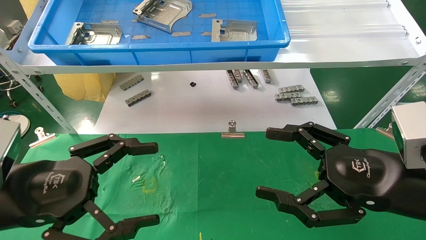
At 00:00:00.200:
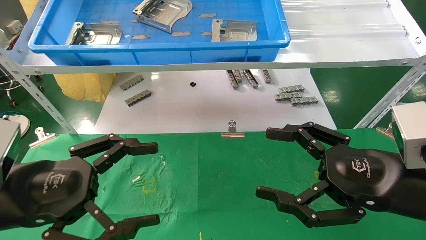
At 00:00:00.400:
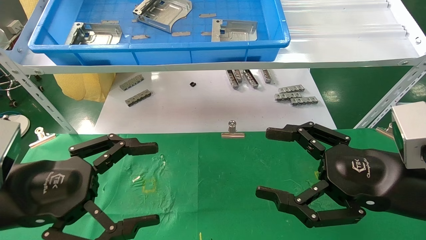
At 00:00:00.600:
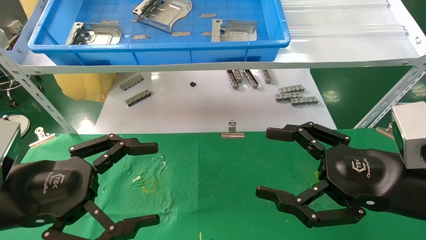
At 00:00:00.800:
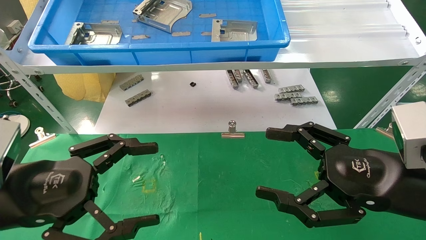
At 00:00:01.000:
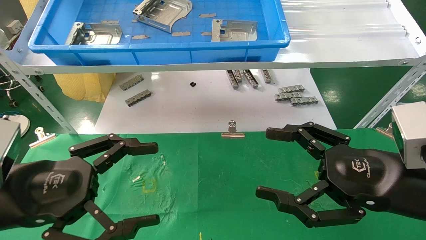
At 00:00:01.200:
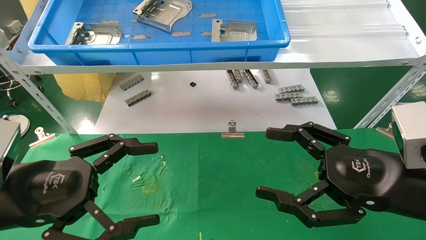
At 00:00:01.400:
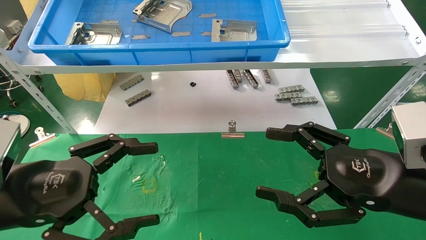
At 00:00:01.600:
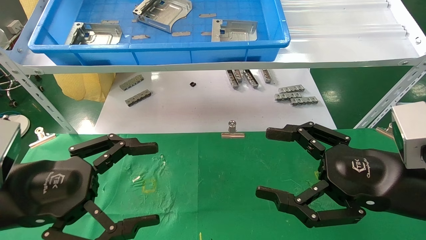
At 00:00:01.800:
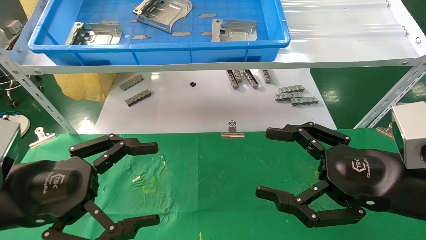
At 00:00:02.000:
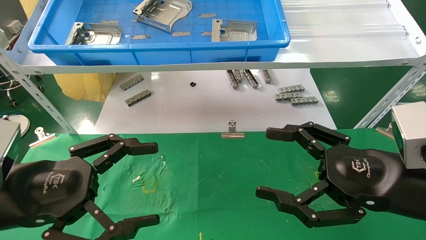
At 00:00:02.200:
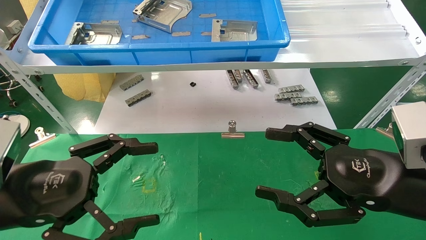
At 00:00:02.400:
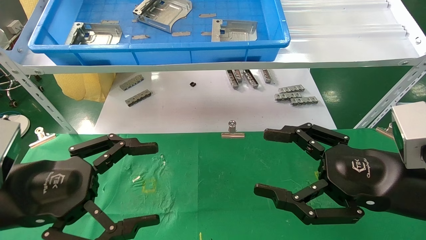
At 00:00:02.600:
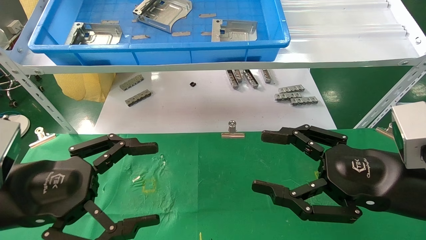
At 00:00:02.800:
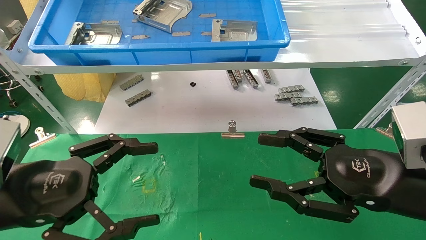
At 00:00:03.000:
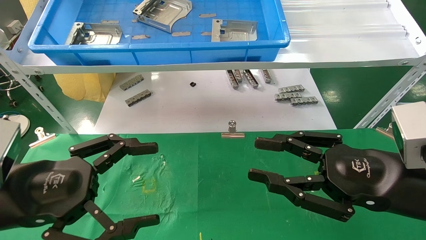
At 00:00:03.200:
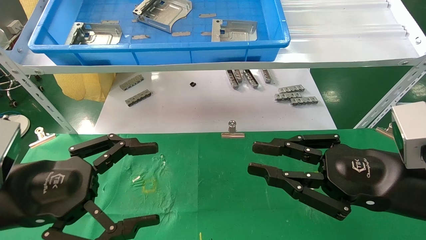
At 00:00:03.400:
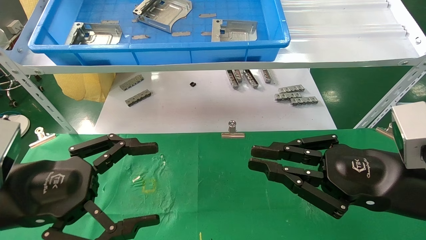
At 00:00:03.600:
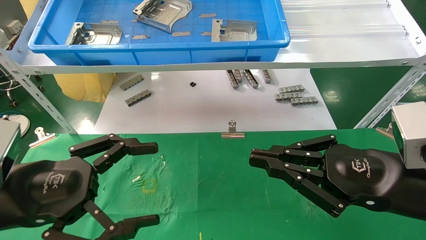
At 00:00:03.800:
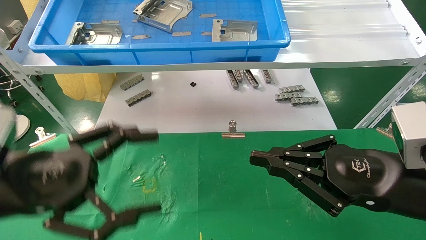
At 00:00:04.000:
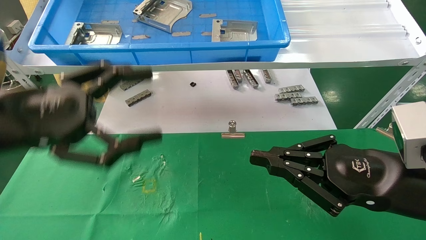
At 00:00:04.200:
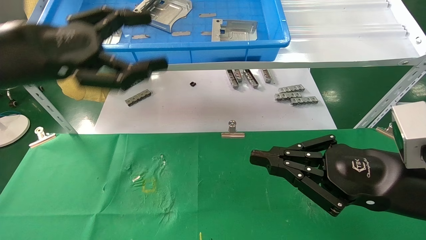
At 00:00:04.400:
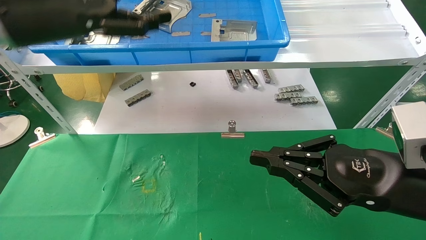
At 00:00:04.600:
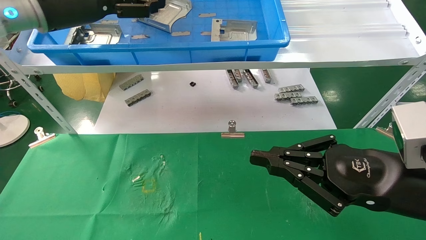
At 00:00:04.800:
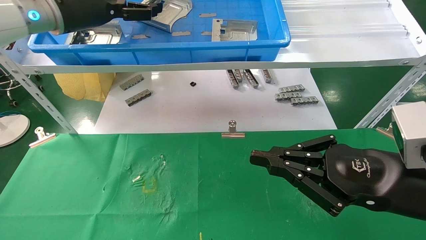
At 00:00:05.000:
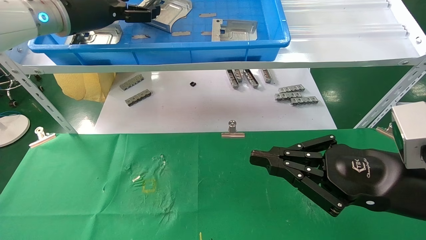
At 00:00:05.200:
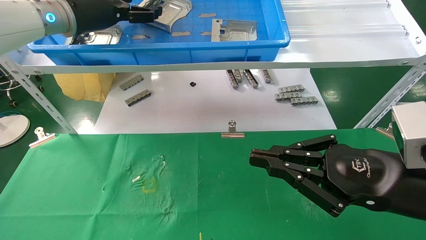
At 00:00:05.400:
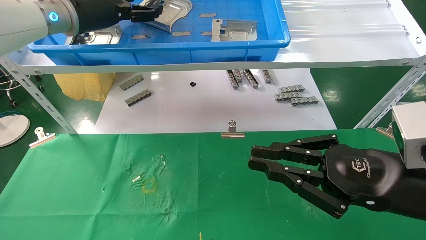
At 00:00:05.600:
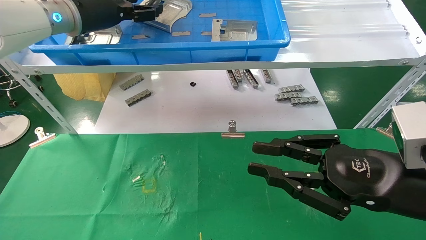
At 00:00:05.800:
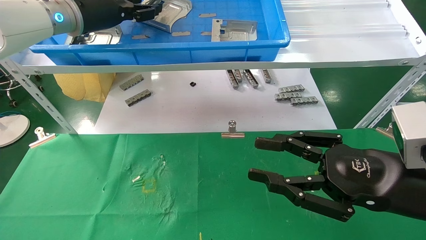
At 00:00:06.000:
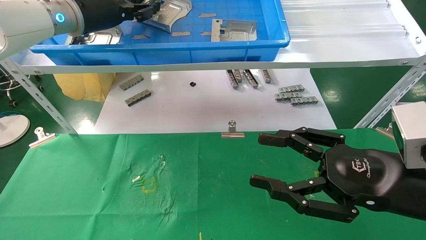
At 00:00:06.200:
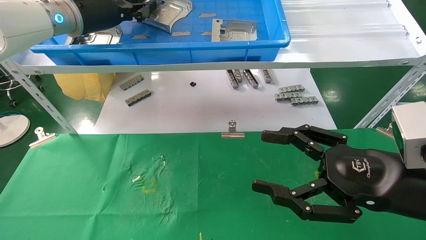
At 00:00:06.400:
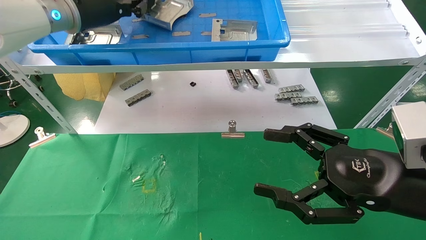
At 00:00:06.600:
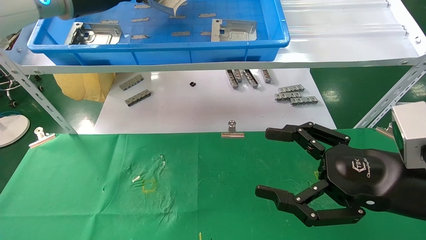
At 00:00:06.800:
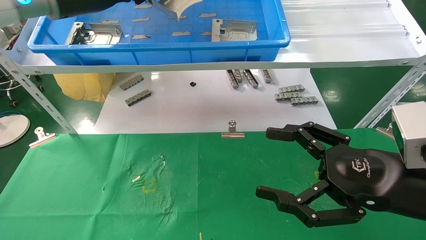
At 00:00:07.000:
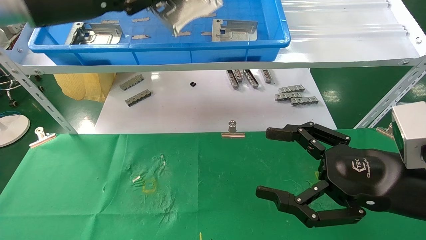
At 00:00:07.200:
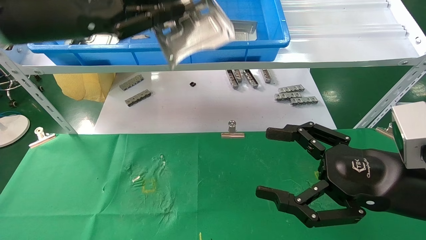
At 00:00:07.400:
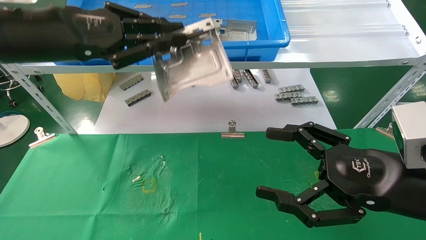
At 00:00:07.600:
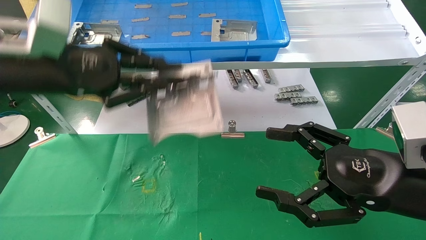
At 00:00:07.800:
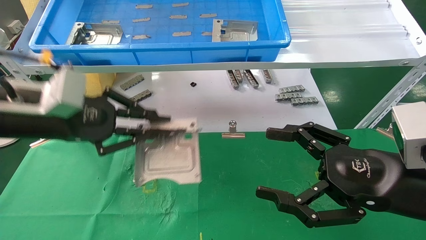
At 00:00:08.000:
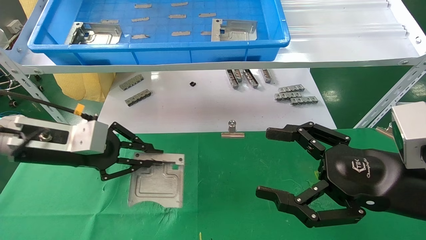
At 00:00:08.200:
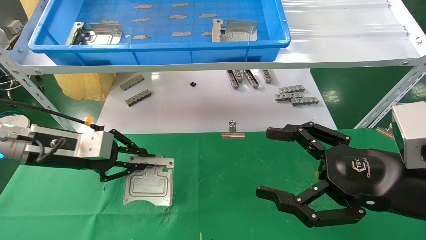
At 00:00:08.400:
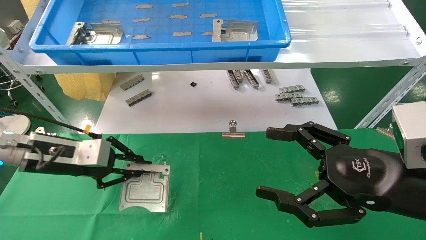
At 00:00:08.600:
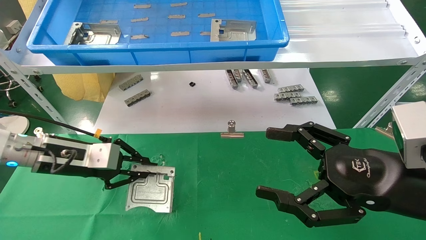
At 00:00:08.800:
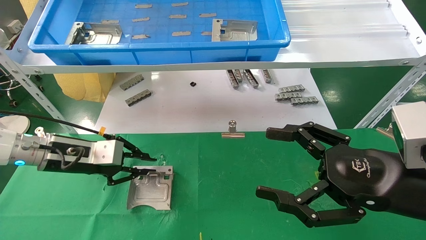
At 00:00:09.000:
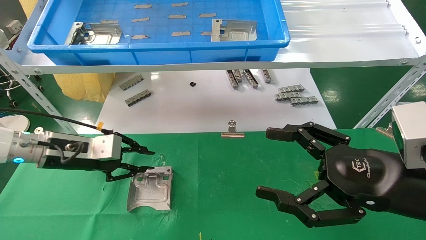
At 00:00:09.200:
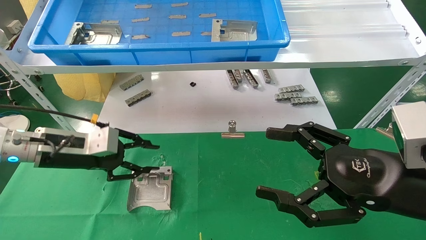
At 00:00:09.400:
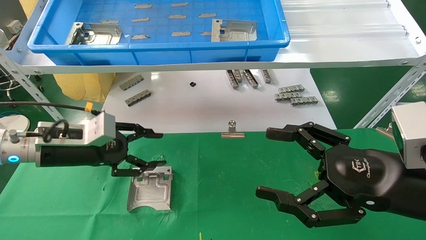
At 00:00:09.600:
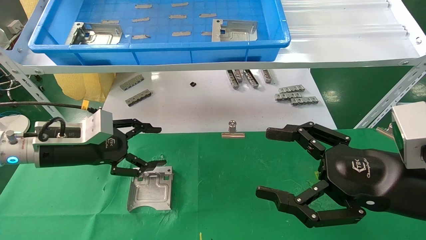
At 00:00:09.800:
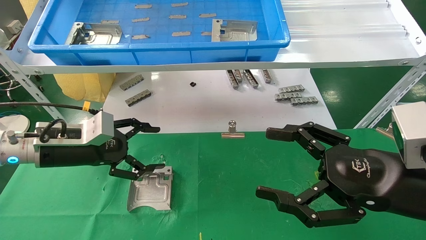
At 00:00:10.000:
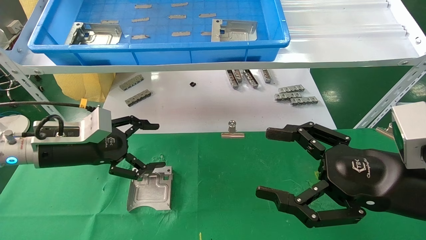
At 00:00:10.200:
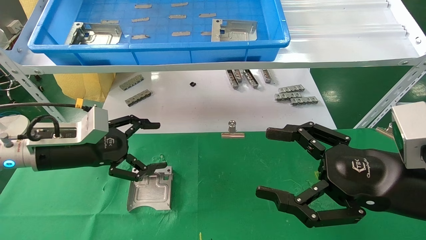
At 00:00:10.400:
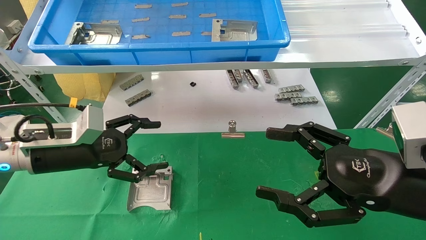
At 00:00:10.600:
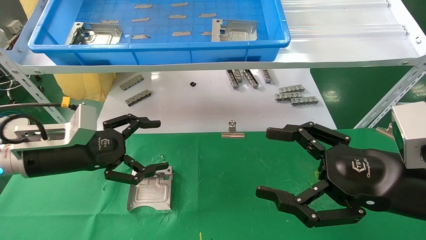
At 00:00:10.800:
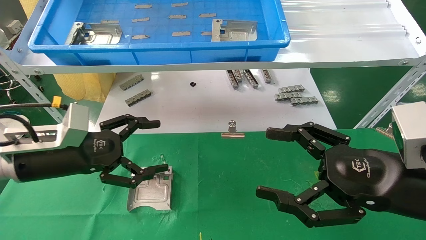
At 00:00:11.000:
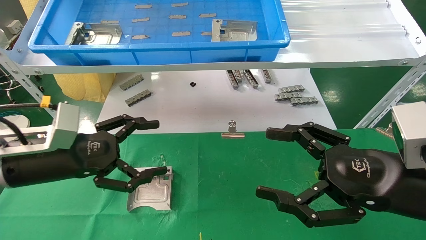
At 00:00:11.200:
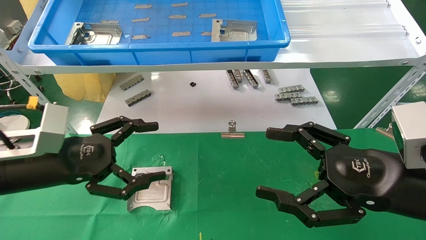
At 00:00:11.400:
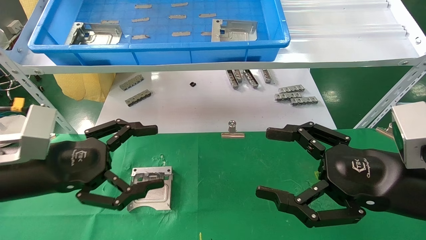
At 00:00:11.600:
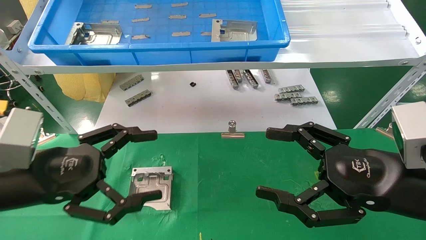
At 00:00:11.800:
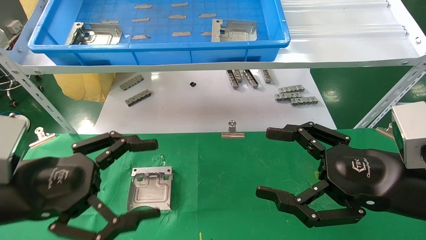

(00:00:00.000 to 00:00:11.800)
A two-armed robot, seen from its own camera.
Task of the whole recording: use the mechanical arm to pick up the parts and place them on the table.
Step, 00:00:04.200 - 00:00:06.200: Pick up the hard drive bracket from the feeding area.
Step, 00:00:06.400 - 00:00:08.800: Place the hard drive bracket into the box.
00:00:00.000 - 00:00:01.400: The two grippers keep their place.
00:00:01.400 - 00:00:03.000: The right gripper closes.
00:00:03.000 - 00:00:04.400: The right gripper closes up, while the left gripper shifts roughly 25 cm upward and forward.
00:00:04.400 - 00:00:06.000: The left gripper is displaced forward by approximately 10 cm, and closes its fingers, while the right gripper opens up.
00:00:06.000 - 00:00:07.400: The left gripper goes about 15 cm backward, and closes, while the right gripper opens up.
00:00:07.400 - 00:00:08.800: The left gripper goes some 20 cm downward.
00:00:08.800 - 00:00:10.400: The left gripper opens its fingers.
00:00:10.400 - 00:00:11.800: The left gripper is displaced backward by about 10 cm.
